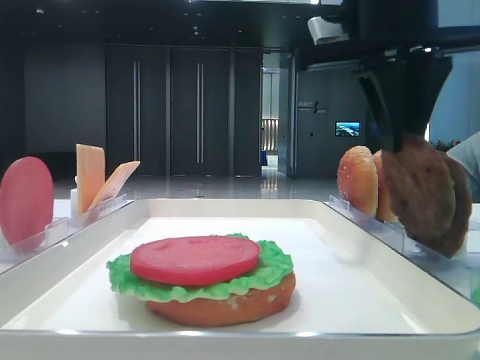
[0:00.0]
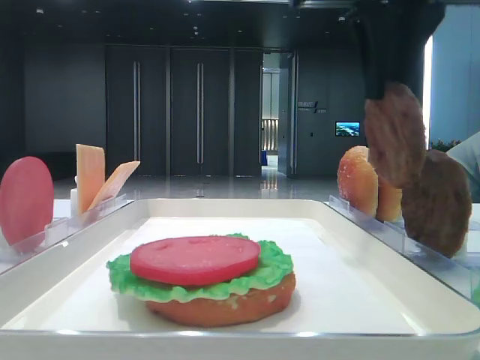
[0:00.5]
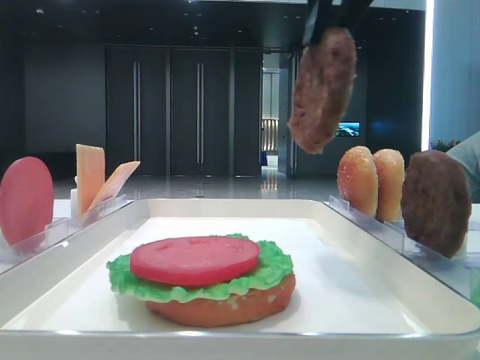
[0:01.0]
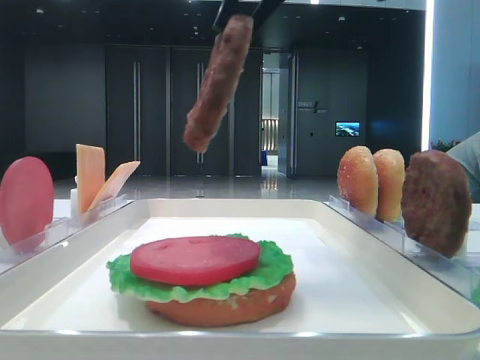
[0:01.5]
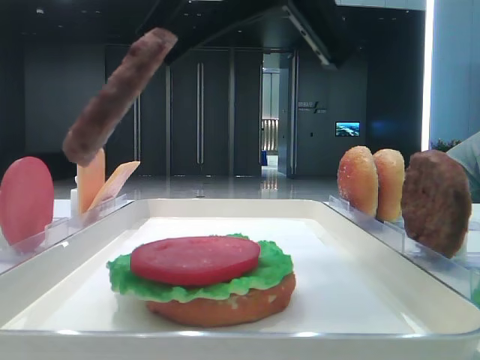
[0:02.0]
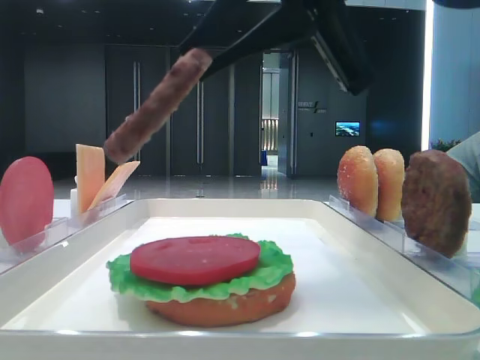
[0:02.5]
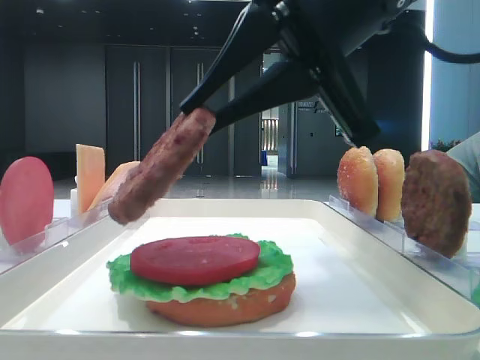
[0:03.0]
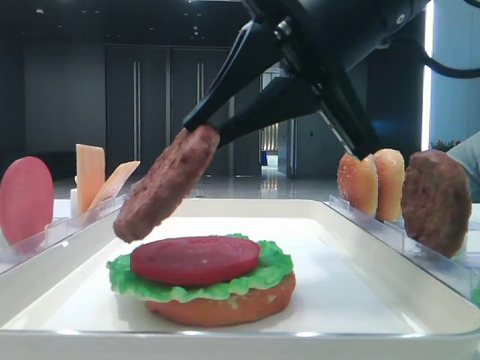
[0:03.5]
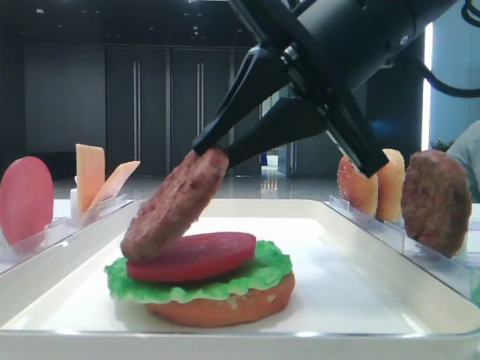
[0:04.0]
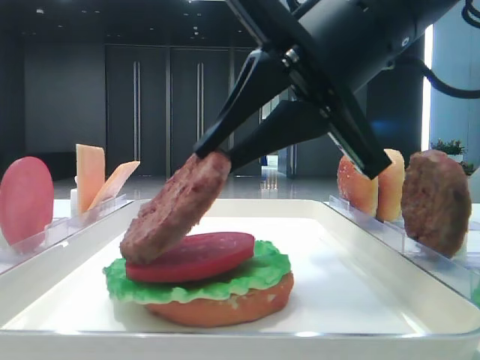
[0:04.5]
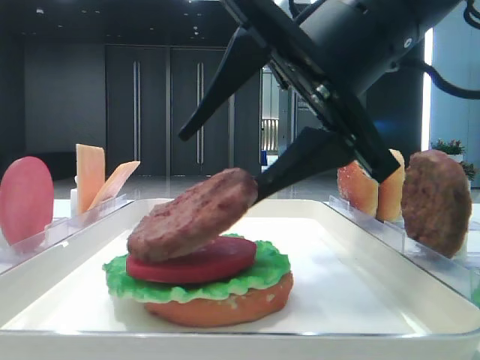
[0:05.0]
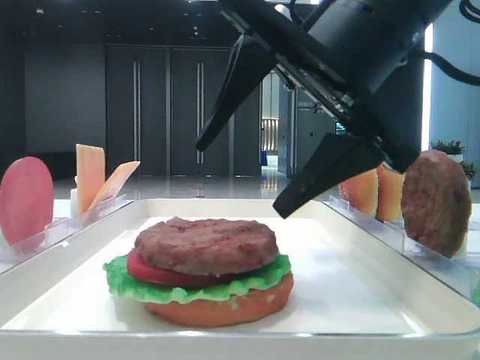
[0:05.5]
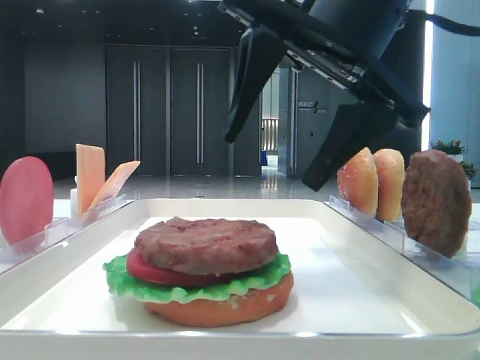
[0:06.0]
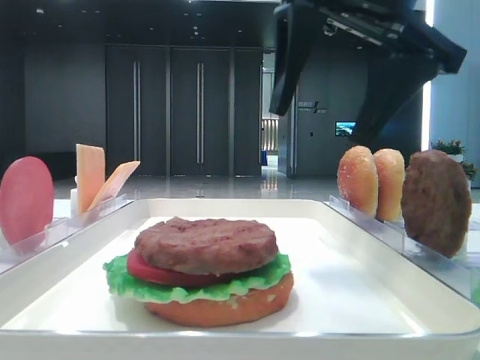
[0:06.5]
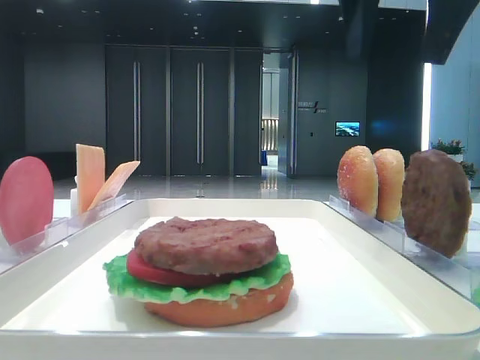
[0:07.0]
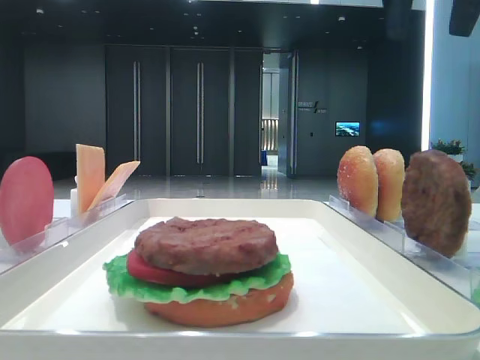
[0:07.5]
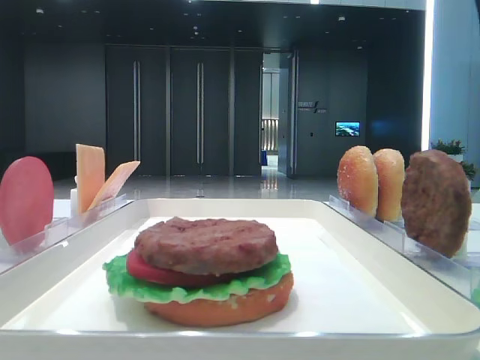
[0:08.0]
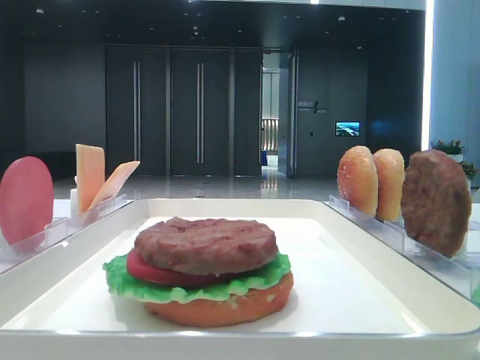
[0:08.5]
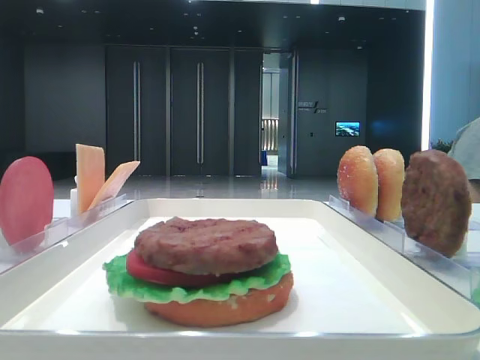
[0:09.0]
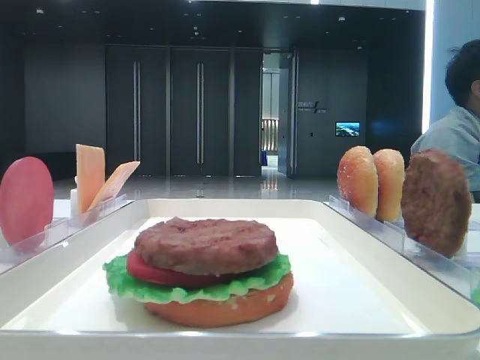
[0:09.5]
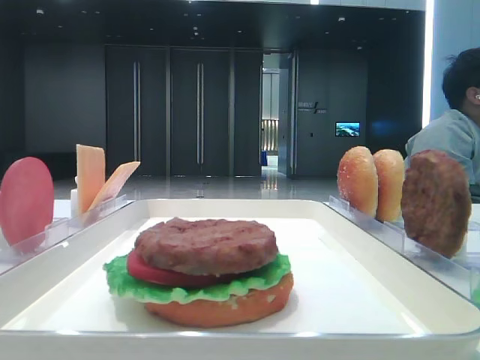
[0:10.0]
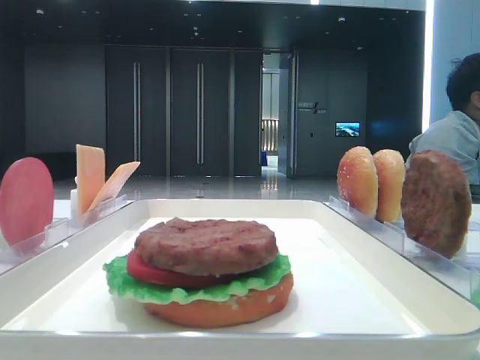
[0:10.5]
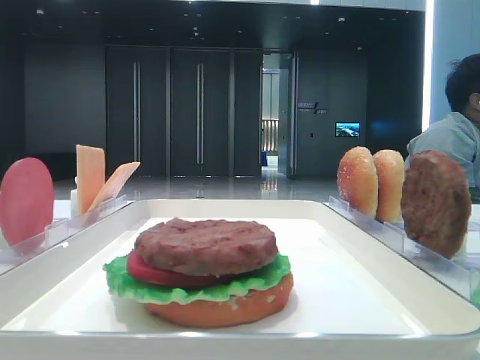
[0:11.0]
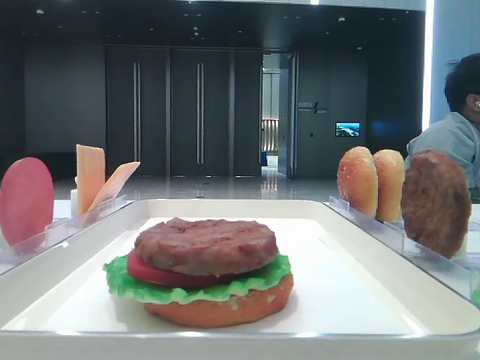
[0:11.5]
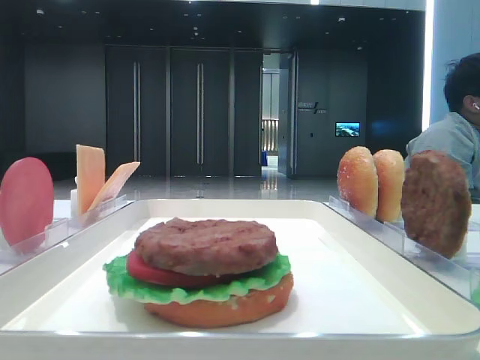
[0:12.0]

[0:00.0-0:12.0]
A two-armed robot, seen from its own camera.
Step, 0:00.0 to 0:05.5: Place the patty on the tomato slice with the right hand.
0:00.0 to 0:02.0: The right gripper goes approximately 10 cm backward and to the left.
0:02.0 to 0:04.0: The right gripper shifts about 5 cm downward.
0:04.0 to 0:06.0: The right gripper opens.
0:06.0 to 0:08.0: The right gripper travels to the right and upward by roughly 20 cm.
0:08.0 to 0:10.0: The right gripper moves backward, roughly 25 cm.
0:10.0 to 0:12.0: The right gripper moves backward and downward, roughly 10 cm.

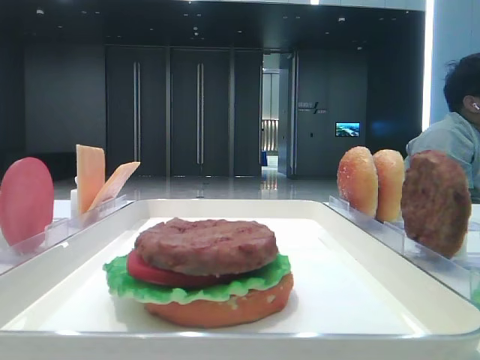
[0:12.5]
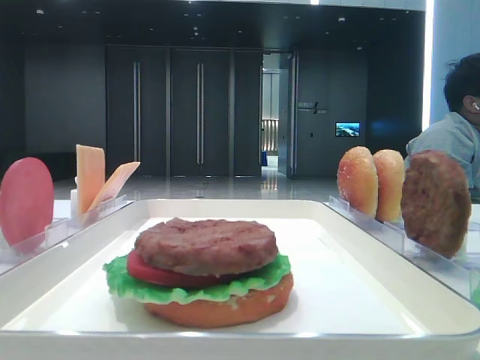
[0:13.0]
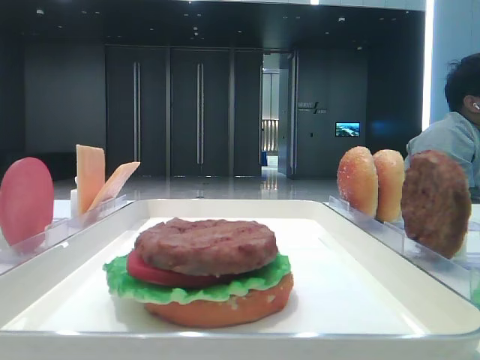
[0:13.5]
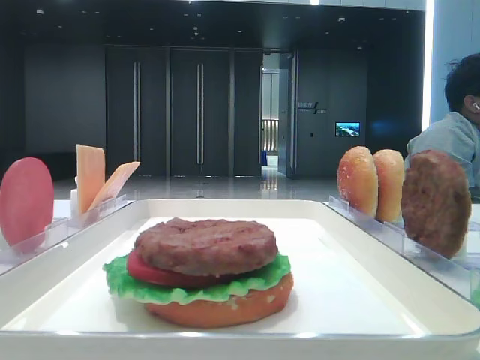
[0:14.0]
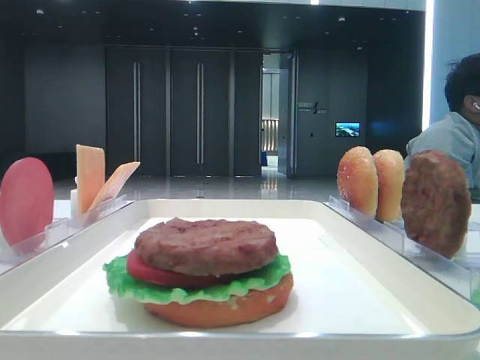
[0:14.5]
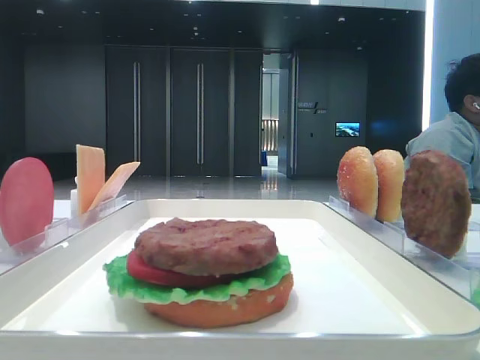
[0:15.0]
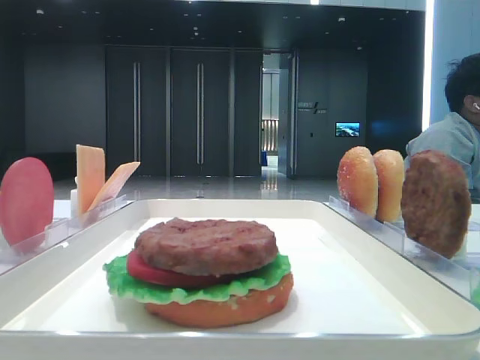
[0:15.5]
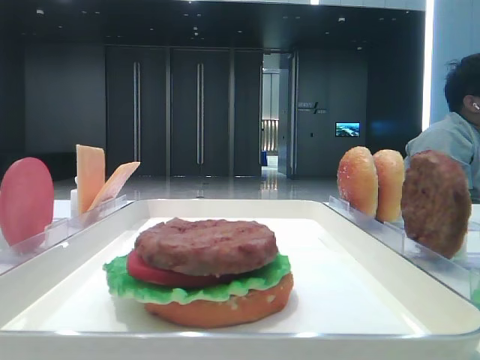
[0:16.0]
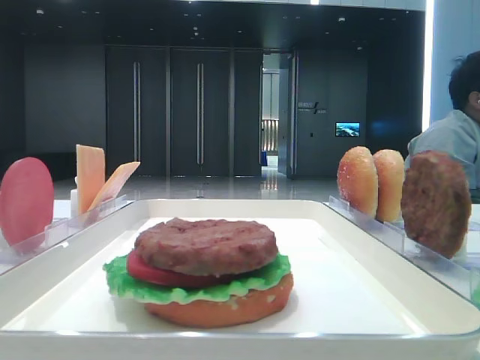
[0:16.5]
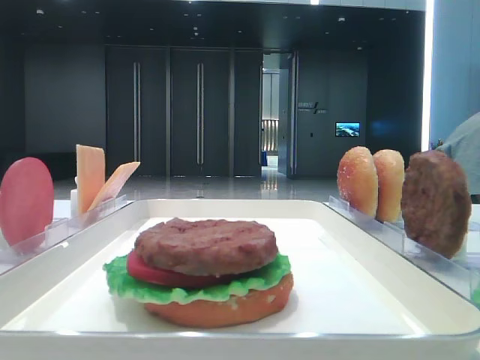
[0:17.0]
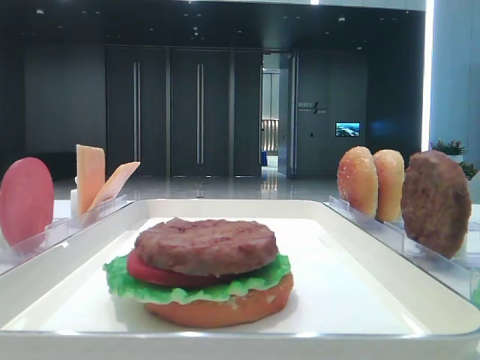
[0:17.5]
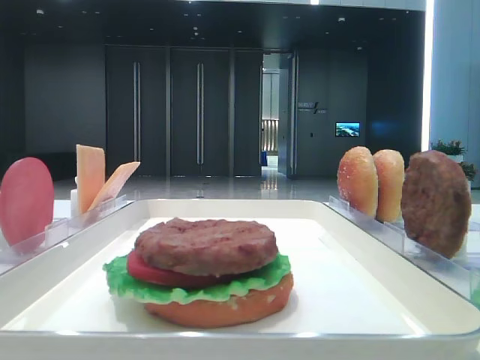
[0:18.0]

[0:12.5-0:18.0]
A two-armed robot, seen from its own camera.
0:14.5 to 0:18.0: Both grippers stay put.

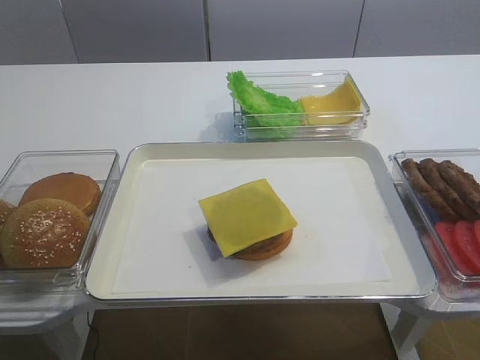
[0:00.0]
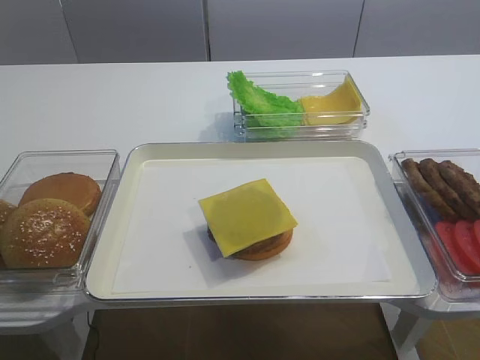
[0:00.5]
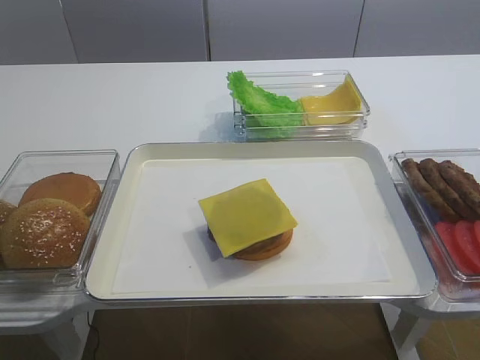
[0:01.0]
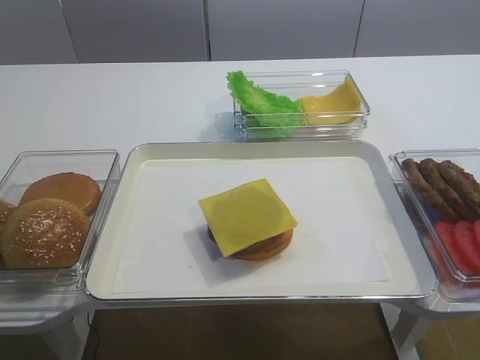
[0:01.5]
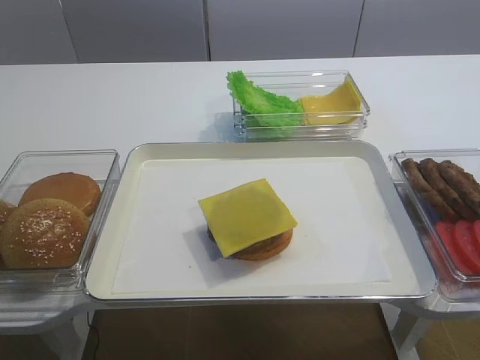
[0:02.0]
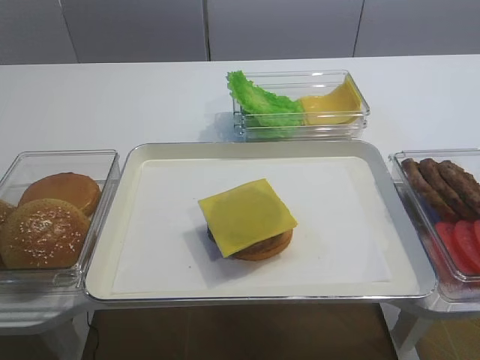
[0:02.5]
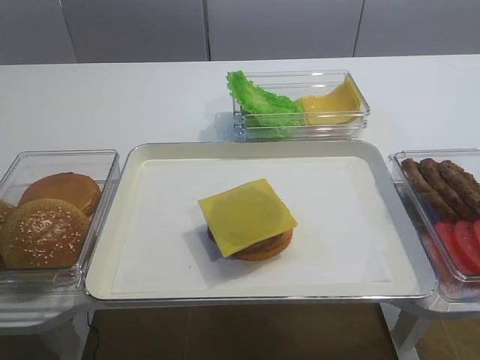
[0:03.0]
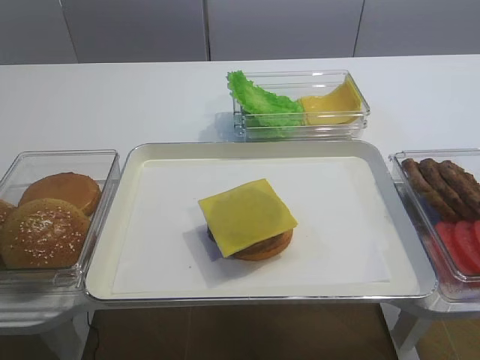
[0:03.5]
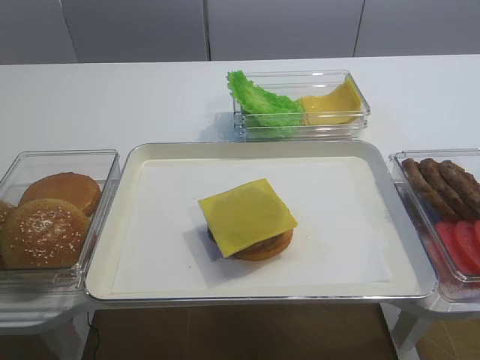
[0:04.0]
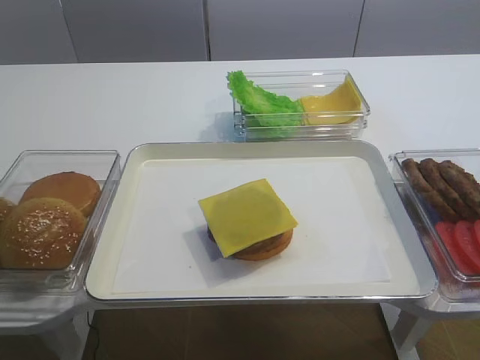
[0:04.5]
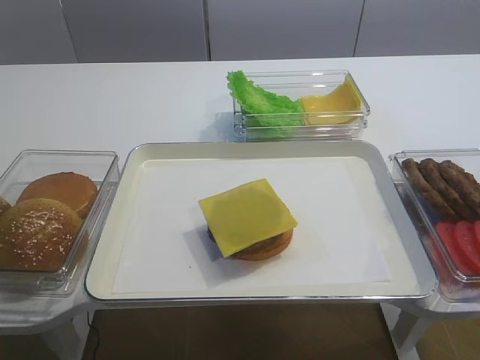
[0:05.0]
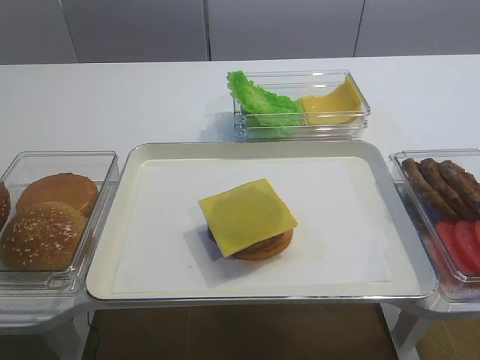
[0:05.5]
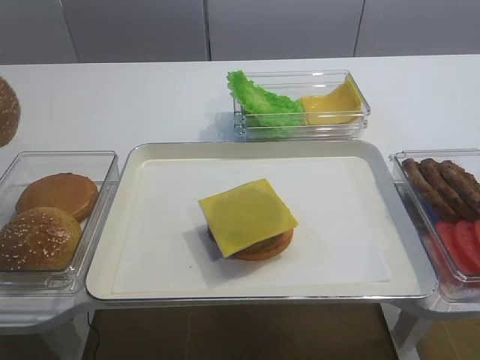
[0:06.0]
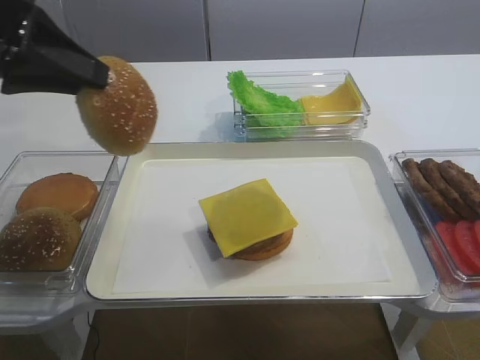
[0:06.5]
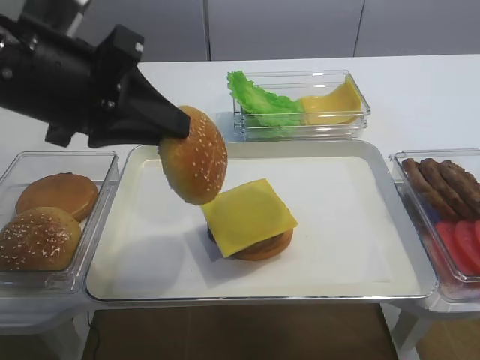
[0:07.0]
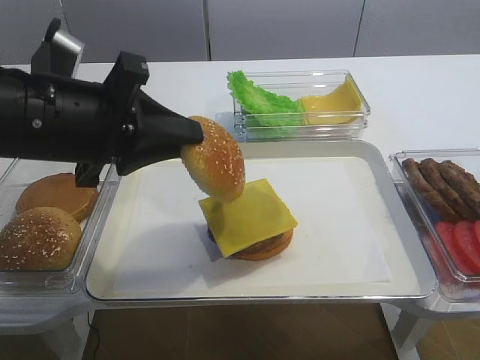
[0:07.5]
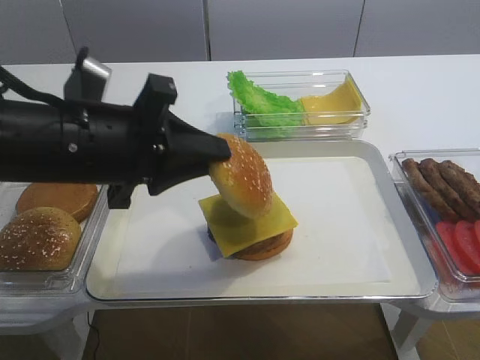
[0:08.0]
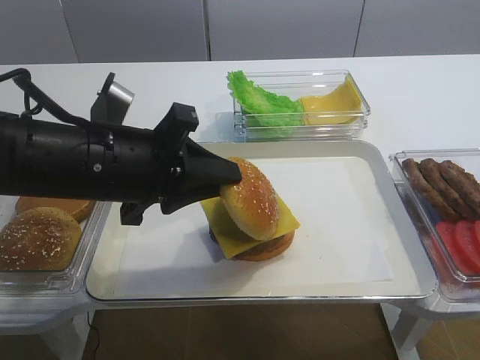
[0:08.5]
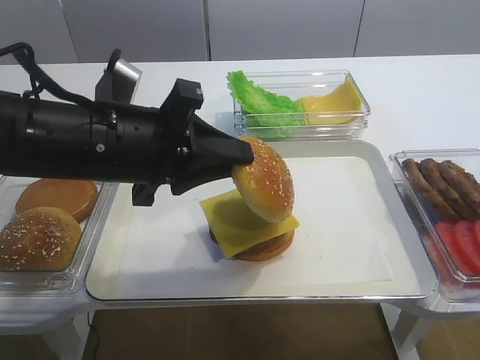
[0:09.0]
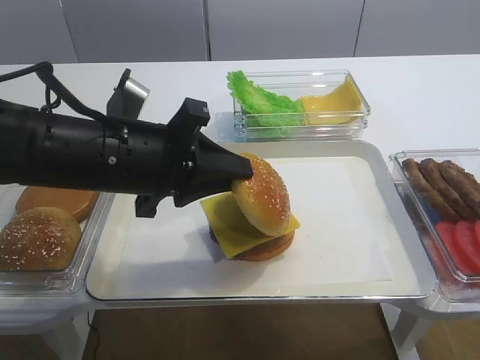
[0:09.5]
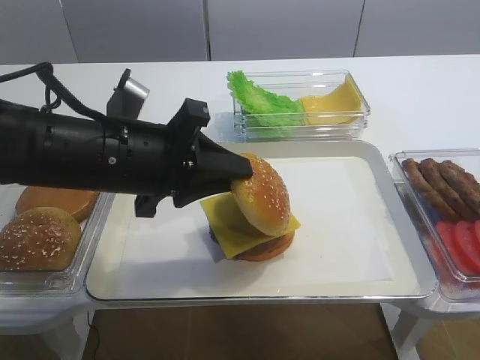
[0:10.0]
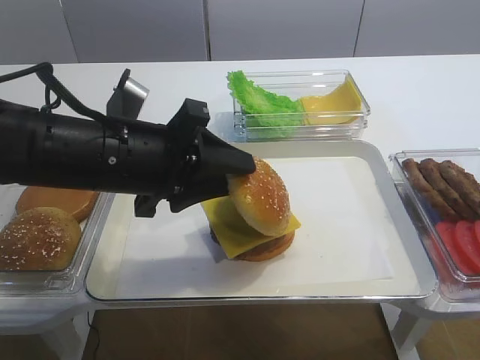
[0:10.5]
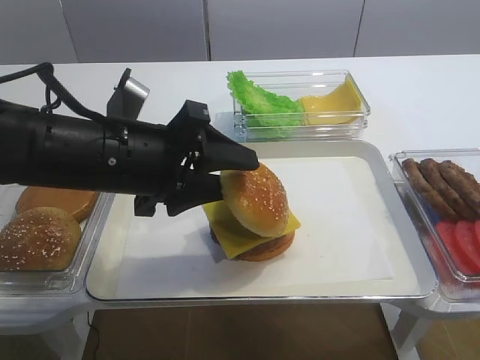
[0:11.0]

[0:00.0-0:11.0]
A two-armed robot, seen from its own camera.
Step, 0:00.0 to 0:05.5: Pick up the hamburger lid with the left gripper.
0:03.5 to 0:05.5: The left gripper closes its fingers.
0:05.5 to 0:07.5: The left gripper is displaced to the right by approximately 20 cm.
0:07.5 to 0:09.0: The grippers make only small movements.
0:09.0 to 0:11.0: The left gripper opens up.
